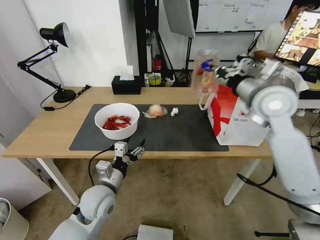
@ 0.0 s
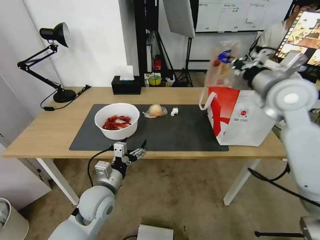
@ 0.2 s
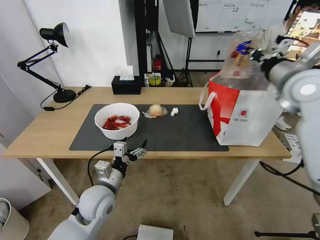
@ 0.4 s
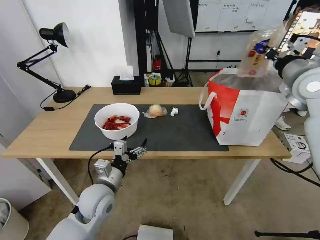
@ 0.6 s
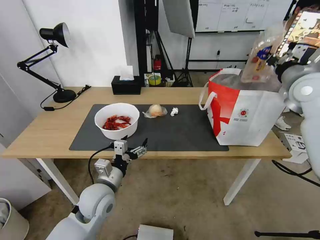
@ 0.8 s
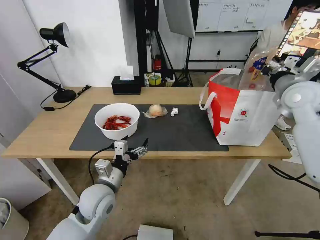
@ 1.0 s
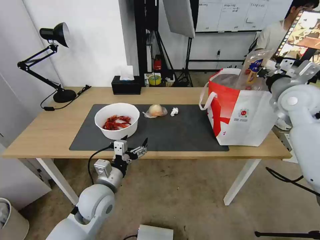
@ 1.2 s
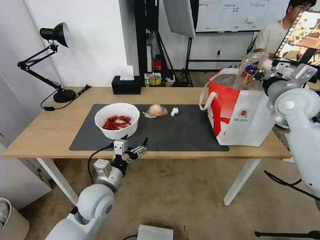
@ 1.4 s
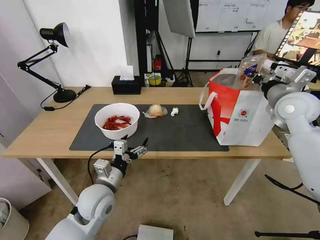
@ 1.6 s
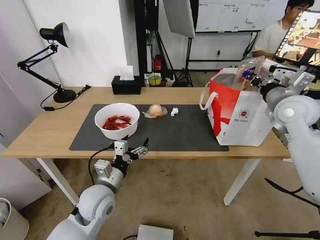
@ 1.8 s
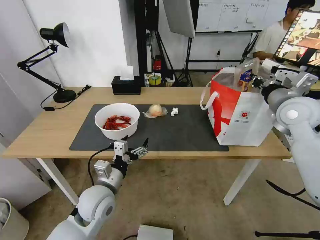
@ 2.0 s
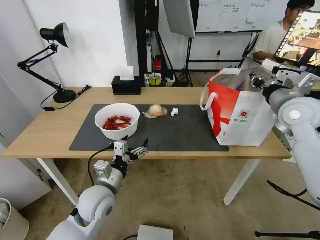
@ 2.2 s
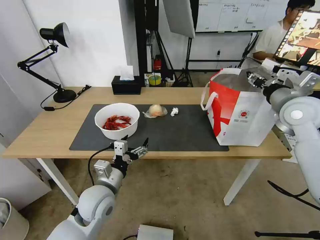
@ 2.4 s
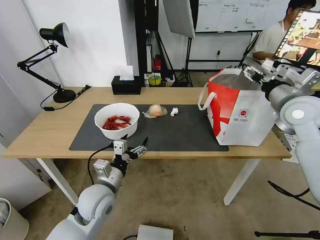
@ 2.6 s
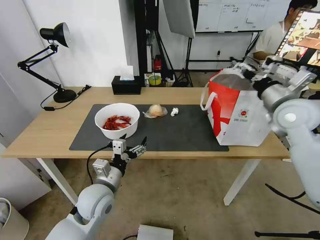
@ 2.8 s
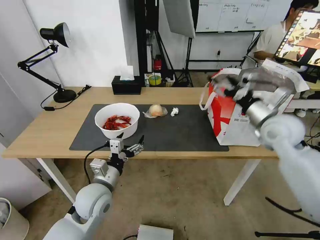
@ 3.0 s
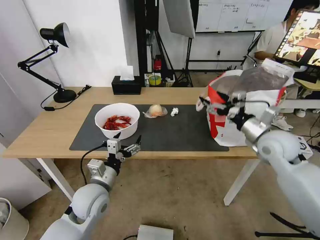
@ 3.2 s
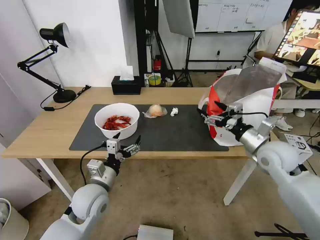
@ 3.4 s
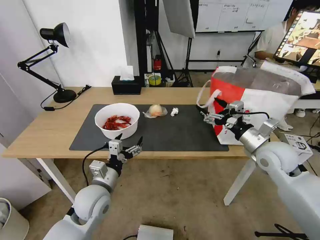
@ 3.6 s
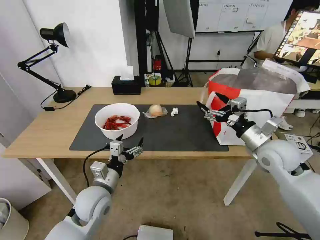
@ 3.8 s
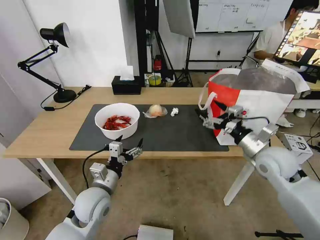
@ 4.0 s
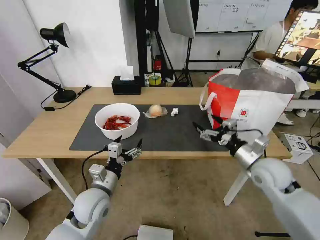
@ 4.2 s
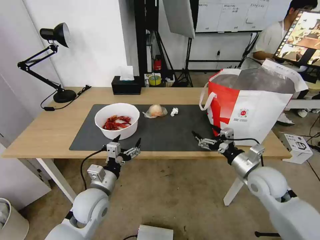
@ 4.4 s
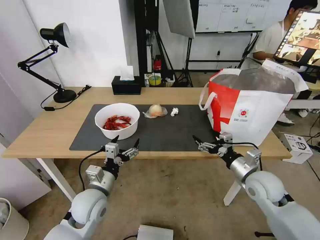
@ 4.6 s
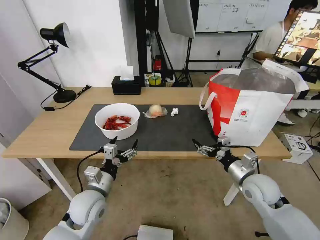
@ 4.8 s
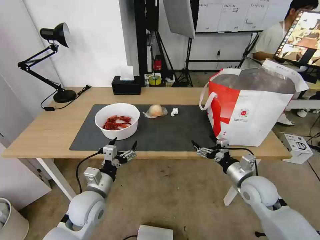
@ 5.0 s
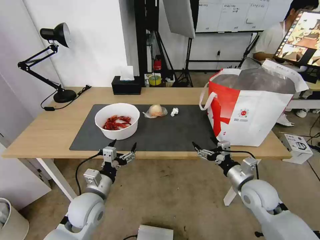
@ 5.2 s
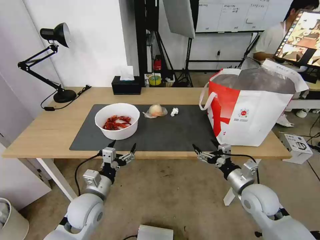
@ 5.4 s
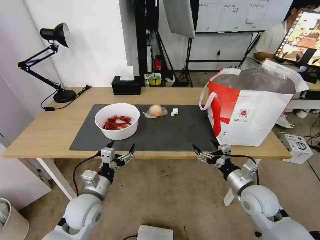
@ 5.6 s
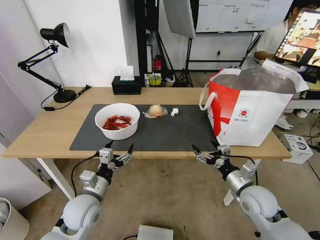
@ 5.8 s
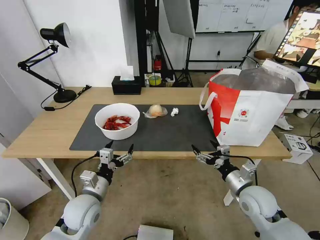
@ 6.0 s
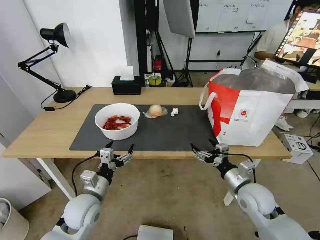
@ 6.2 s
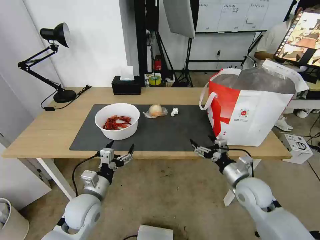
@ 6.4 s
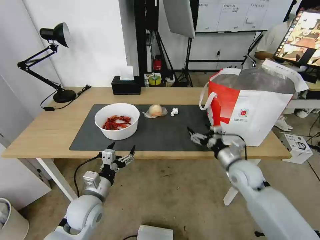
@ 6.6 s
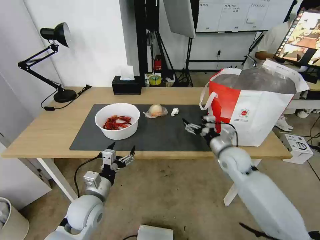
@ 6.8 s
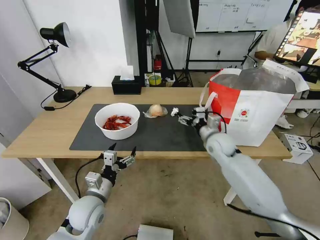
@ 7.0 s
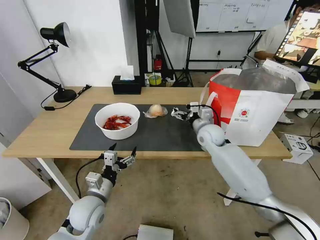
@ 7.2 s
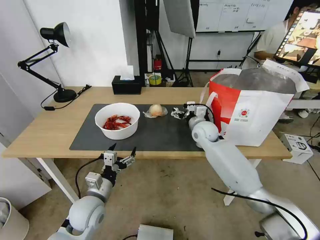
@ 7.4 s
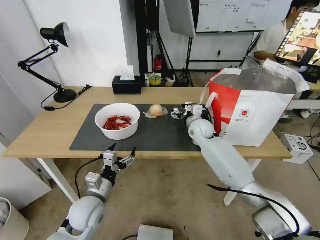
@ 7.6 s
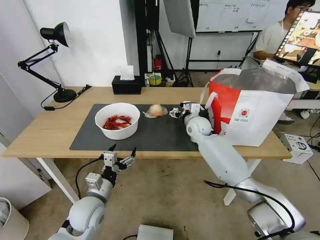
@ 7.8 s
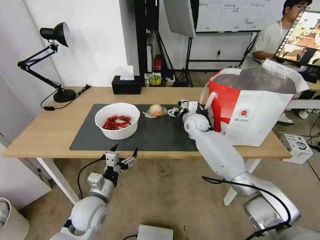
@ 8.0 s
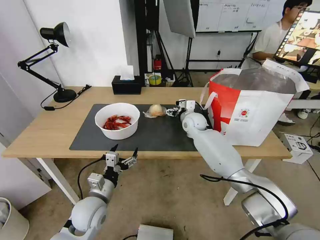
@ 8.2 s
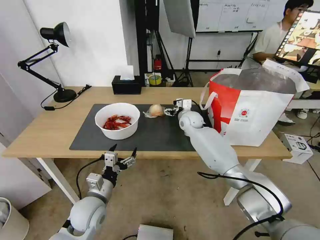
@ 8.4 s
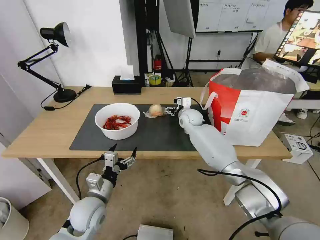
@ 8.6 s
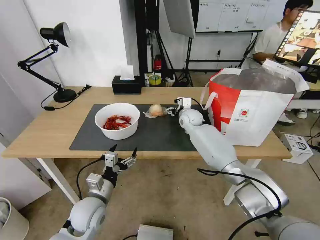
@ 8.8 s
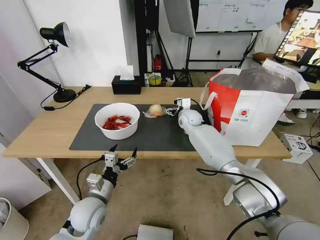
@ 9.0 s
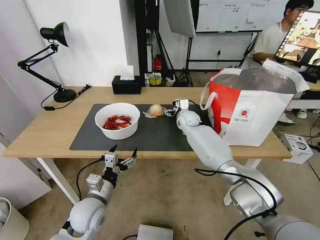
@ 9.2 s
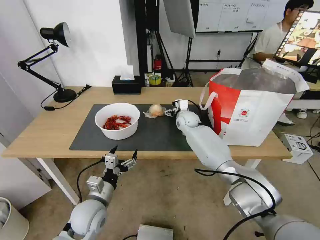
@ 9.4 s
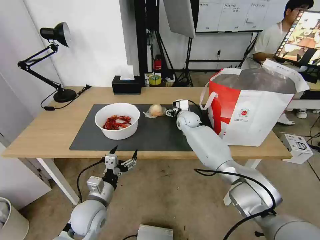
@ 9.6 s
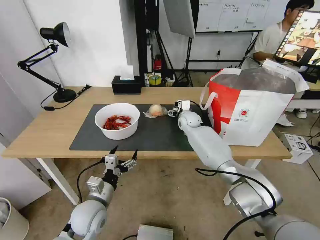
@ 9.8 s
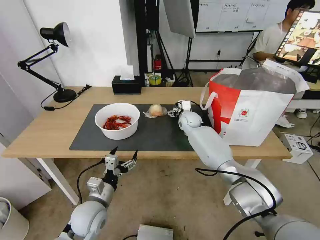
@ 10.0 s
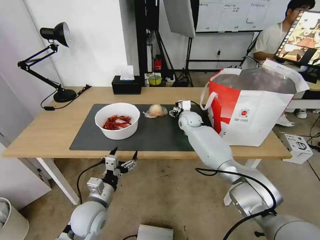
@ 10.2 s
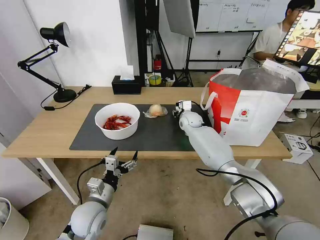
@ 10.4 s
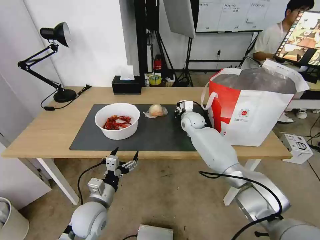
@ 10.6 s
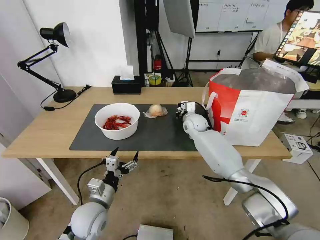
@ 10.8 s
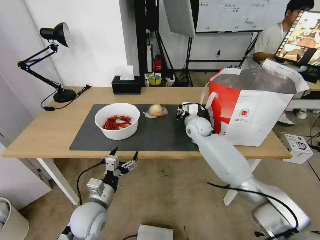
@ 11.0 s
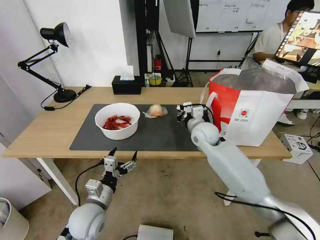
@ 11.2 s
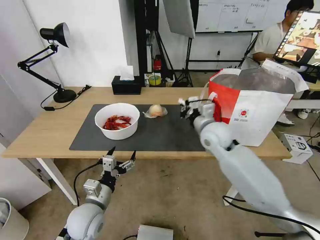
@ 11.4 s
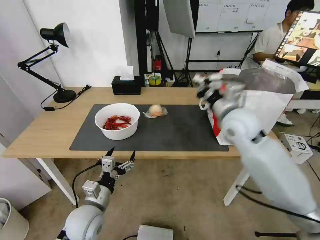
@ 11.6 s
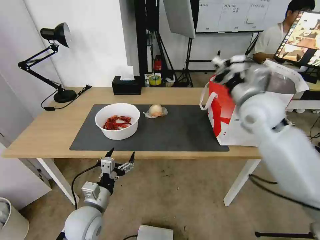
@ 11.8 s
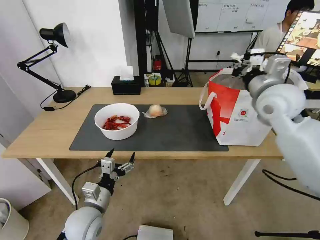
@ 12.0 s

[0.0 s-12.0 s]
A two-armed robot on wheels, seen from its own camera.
Task of the whole recording: Pick up the trash from the table and place it into the takeout bag.
0.0 to 1.6 s: The right gripper goes approximately 10 cm to the right.
1.6 to 3.0 s: The right gripper shifts by approximately 5 cm, and opens its fingers.
3.0 to 4.4 s: The right gripper heads downward and backward, covering some 20 cm.
4.4 to 6.0 s: The right gripper shifts roughly 5 cm downward.
6.0 to 7.6 s: The right gripper is displaced forward and to the left by about 30 cm.
7.6 to 9.0 s: The right gripper goes approximately 5 cm forward.
9.0 to 10.4 s: The right gripper closes its fingers.
10.4 to 12.0 s: The right gripper shifts about 35 cm upward, backward and to the right, and closes up.

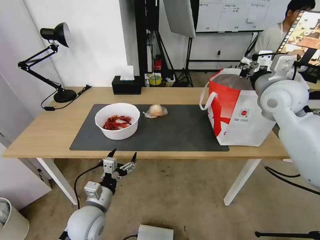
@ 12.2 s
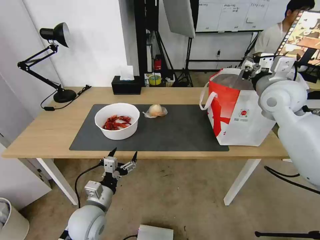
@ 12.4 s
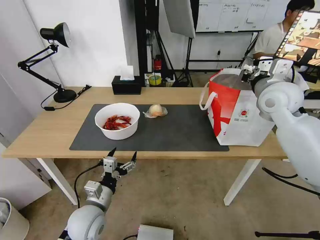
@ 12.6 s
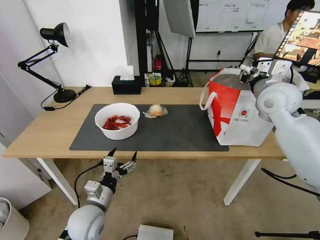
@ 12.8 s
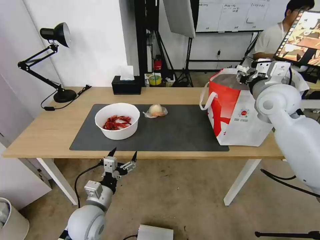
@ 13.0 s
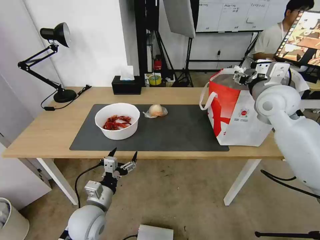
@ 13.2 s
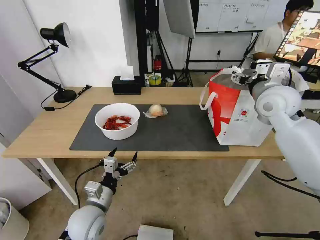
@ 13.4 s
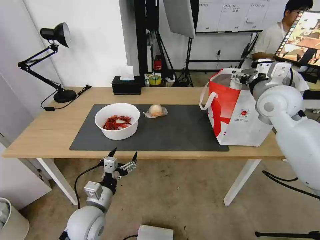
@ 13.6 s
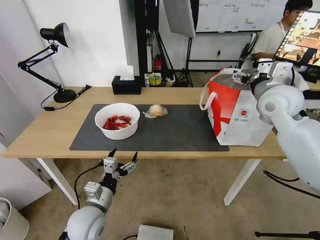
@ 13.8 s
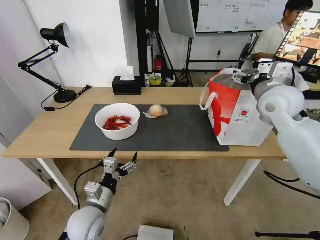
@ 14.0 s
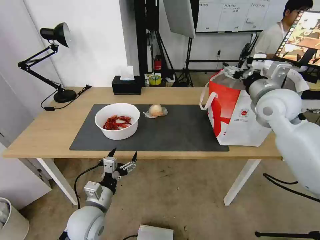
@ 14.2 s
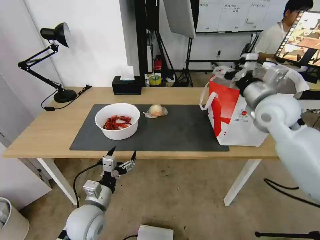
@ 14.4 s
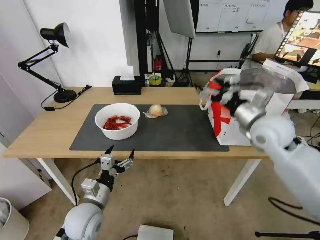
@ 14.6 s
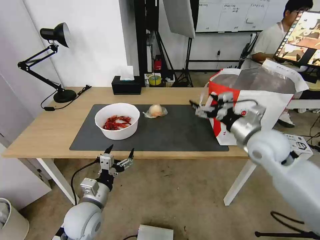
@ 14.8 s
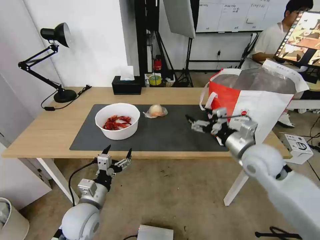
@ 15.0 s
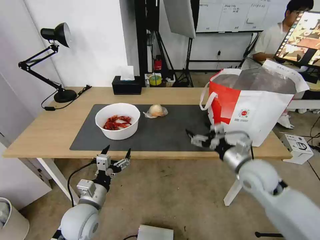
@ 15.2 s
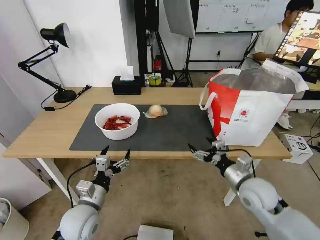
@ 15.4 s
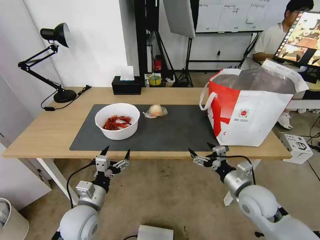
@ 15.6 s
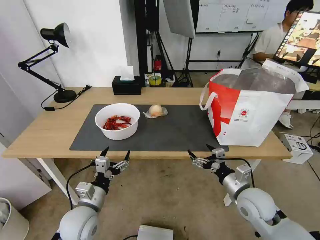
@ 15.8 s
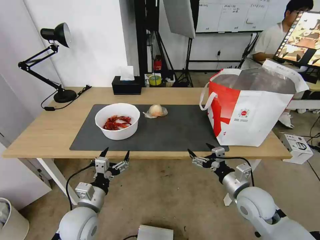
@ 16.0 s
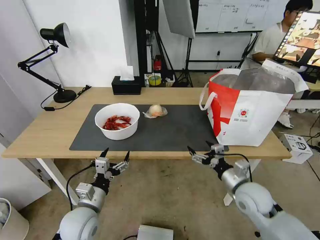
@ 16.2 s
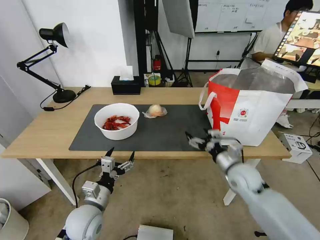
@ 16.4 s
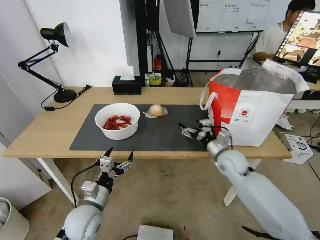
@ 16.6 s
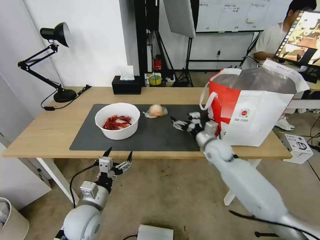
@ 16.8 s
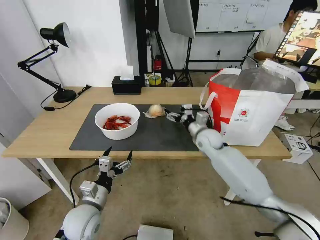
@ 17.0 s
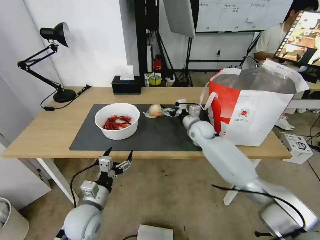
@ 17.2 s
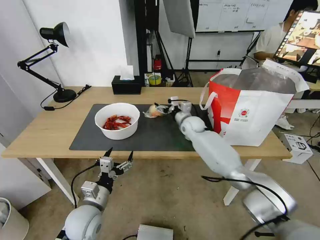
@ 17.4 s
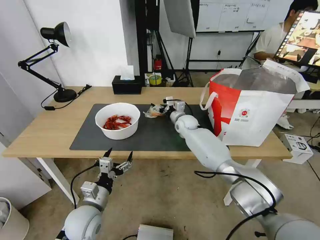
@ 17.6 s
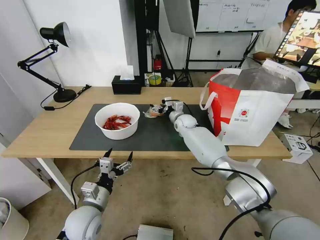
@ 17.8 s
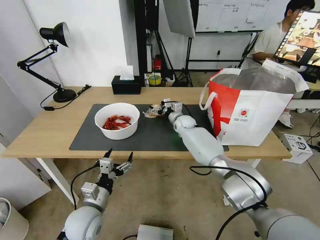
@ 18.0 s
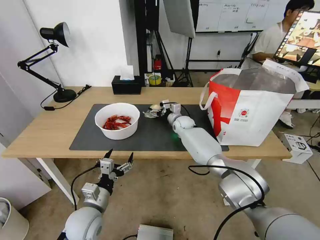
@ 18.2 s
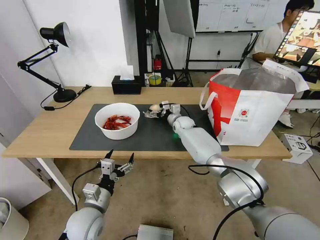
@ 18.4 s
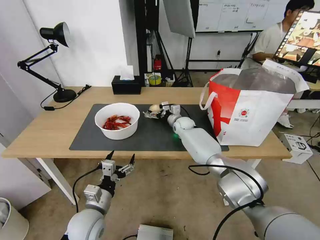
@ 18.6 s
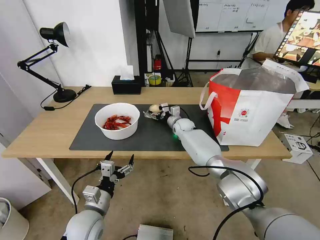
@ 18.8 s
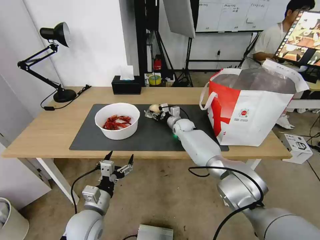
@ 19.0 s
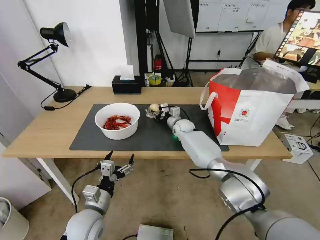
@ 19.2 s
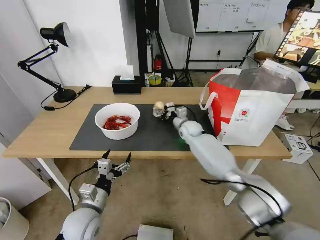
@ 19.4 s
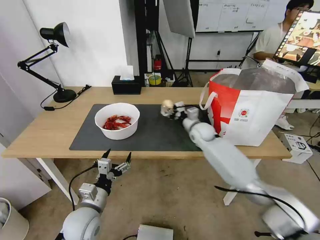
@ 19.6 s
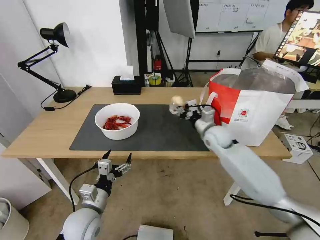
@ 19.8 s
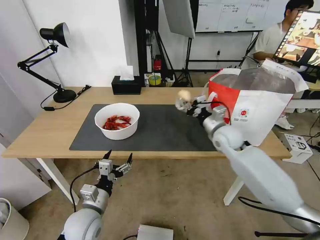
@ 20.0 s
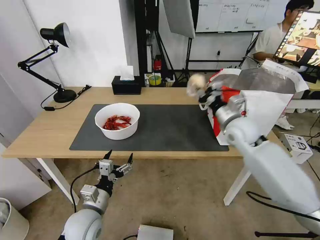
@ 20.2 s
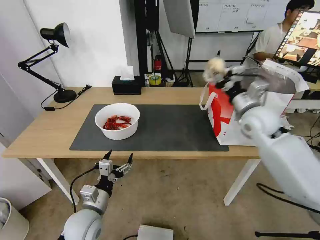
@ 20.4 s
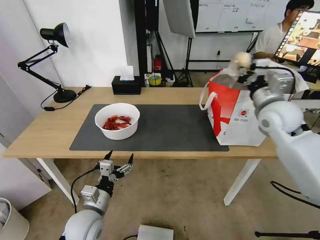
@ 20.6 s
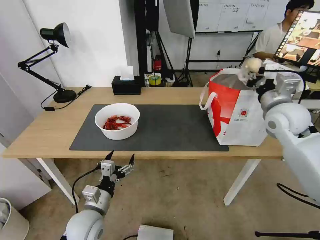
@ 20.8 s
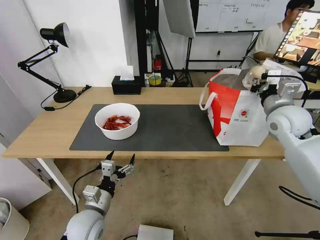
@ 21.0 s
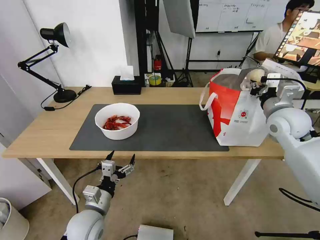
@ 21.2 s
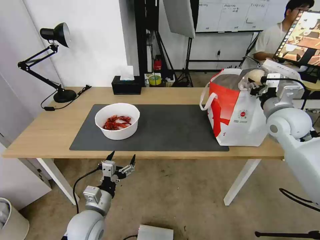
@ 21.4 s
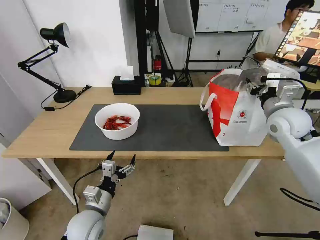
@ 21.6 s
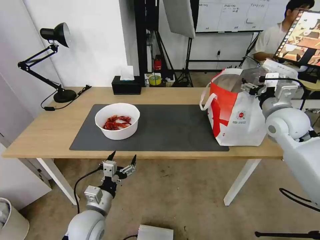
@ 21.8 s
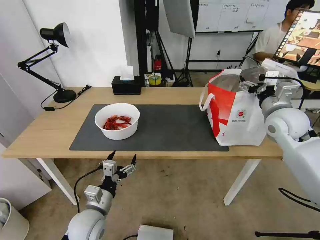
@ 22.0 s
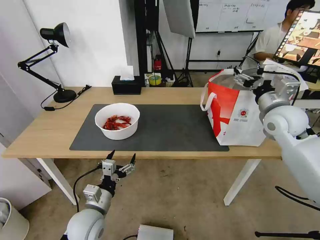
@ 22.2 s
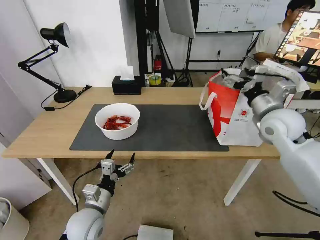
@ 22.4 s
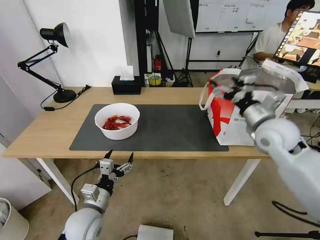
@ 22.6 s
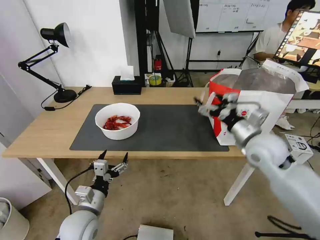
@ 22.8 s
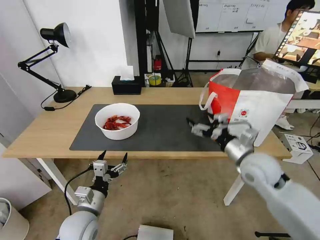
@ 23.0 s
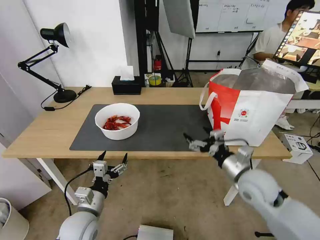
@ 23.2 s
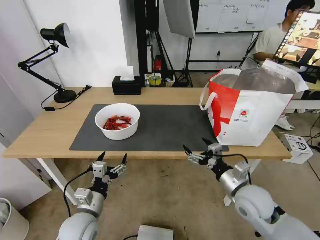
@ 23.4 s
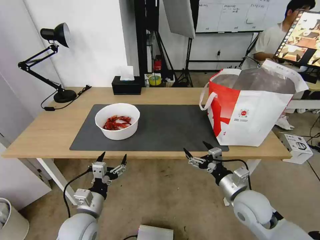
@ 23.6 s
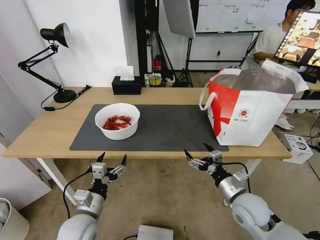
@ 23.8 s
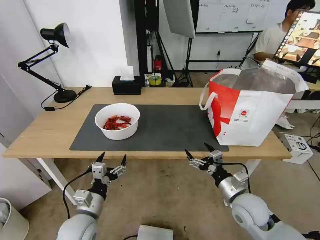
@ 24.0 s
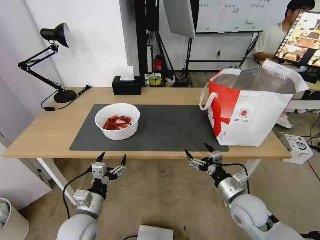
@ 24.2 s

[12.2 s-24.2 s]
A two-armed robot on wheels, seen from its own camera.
Task of the whole recording: Pick up the trash from the table and place it into the takeout bag.
12.2 to 13.8 s: The right gripper opens.
13.8 to 15.2 s: The right gripper goes some 25 cm downward and backward.
15.2 to 16.6 s: The right gripper moves forward, some 10 cm.
16.6 to 18.2 s: The right gripper shifts about 25 cm forward and to the left.
18.2 to 19.8 s: The right gripper heads backward, to the right and upward, covering approximately 20 cm, and closes.
19.8 to 21.2 s: The right gripper heads to the right, upward and backward, covering about 20 cm.
21.2 to 22.6 s: The right gripper shifts about 5 cm to the left, and opens up.
22.6 to 24.2 s: The right gripper travels downward and backward by approximately 25 cm.
